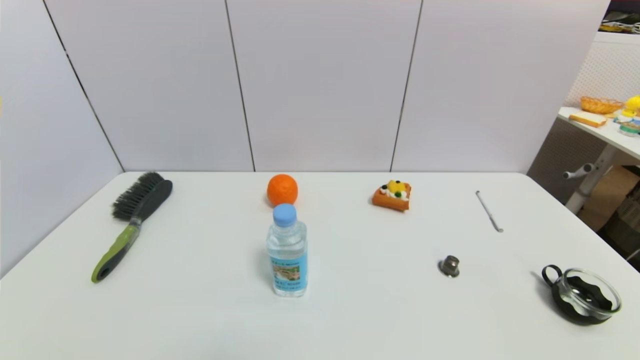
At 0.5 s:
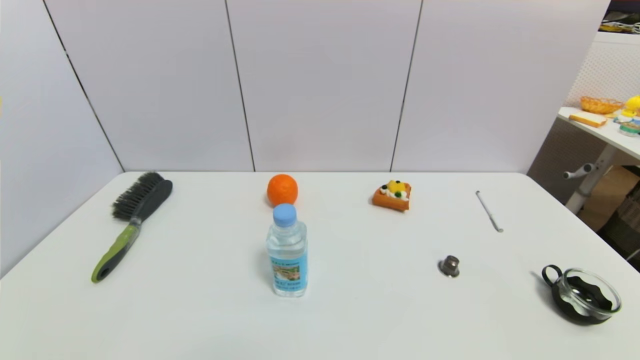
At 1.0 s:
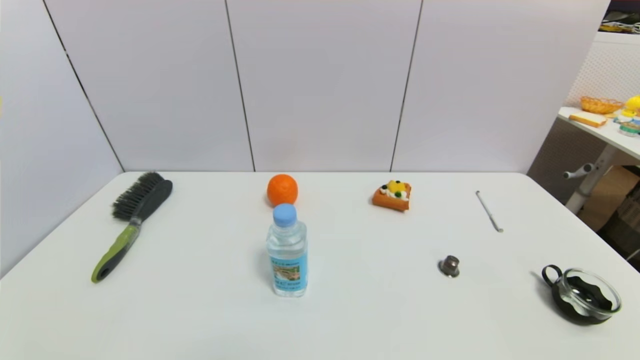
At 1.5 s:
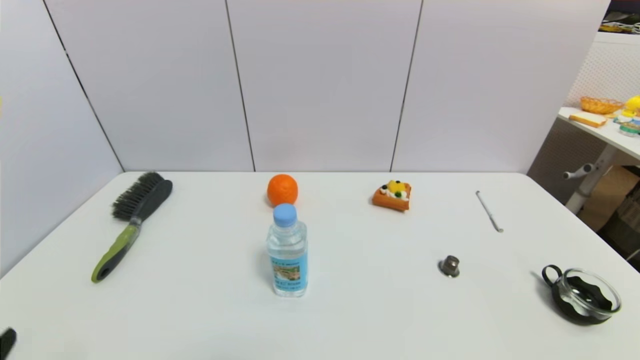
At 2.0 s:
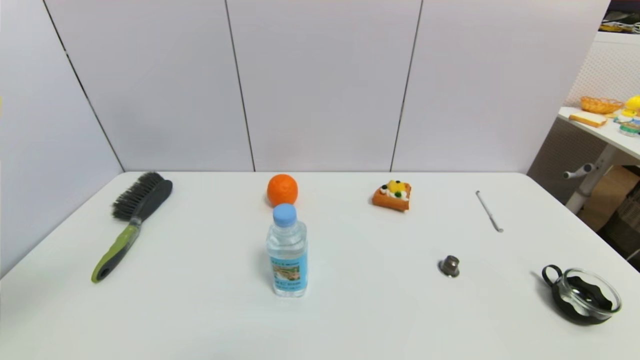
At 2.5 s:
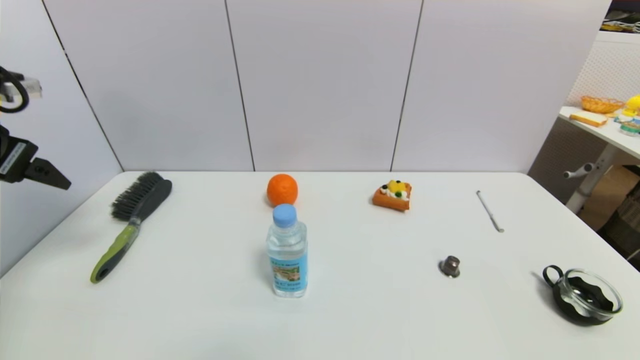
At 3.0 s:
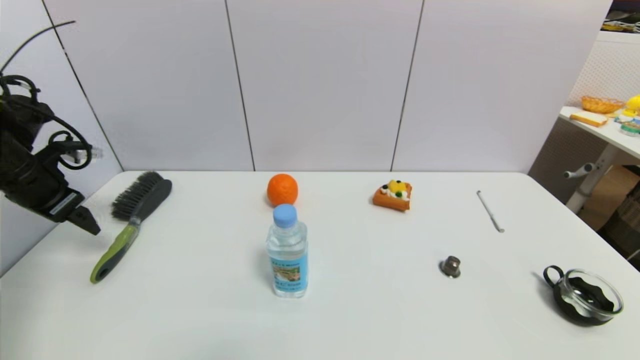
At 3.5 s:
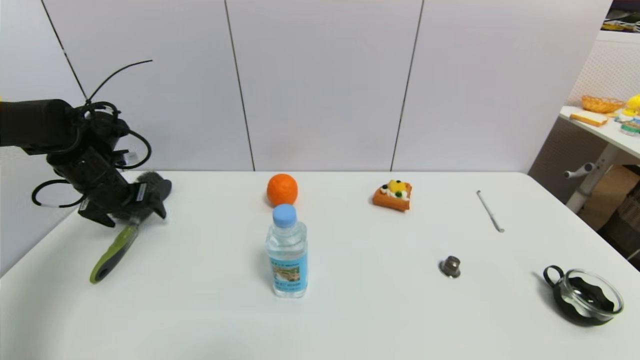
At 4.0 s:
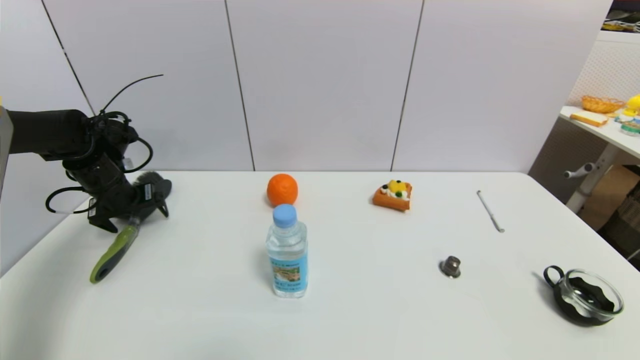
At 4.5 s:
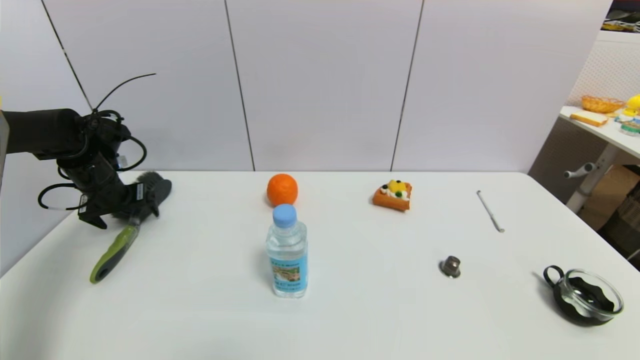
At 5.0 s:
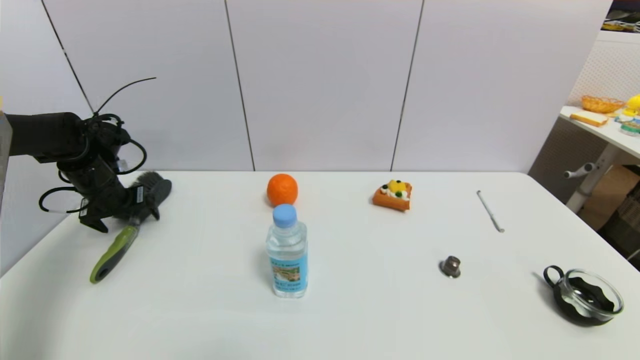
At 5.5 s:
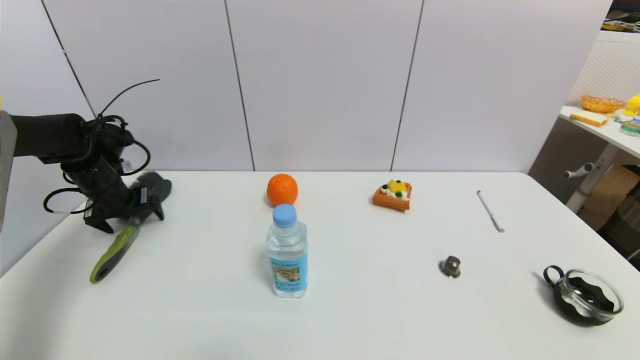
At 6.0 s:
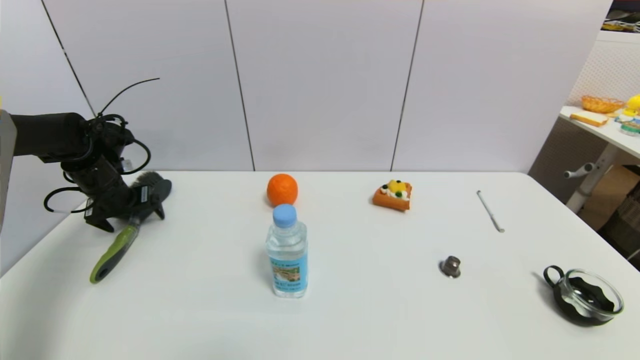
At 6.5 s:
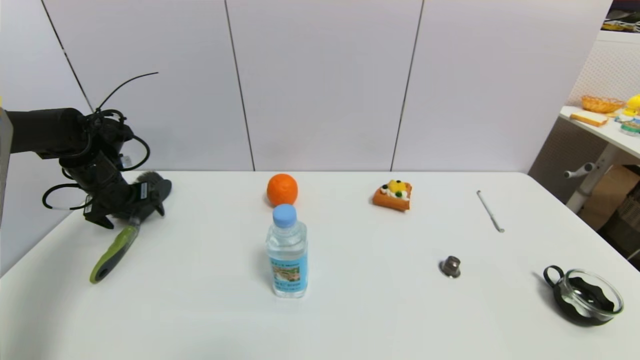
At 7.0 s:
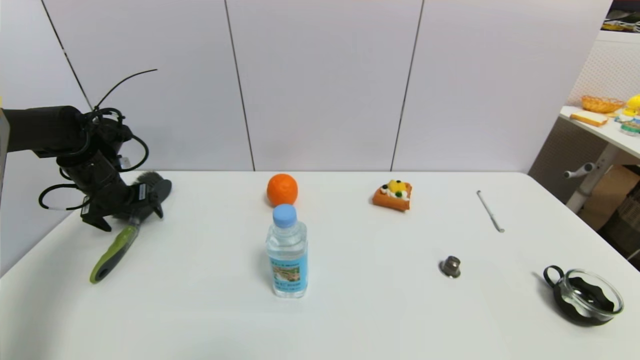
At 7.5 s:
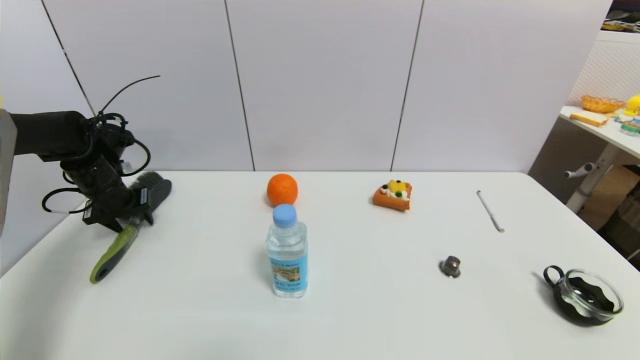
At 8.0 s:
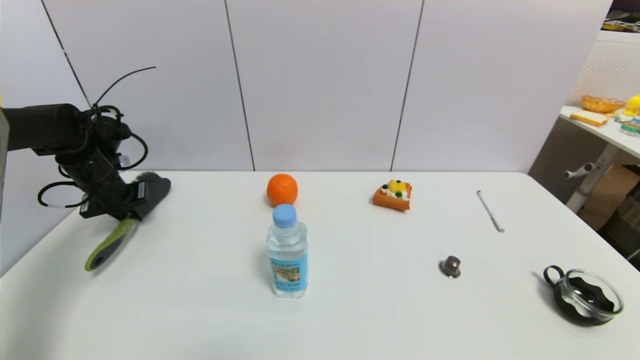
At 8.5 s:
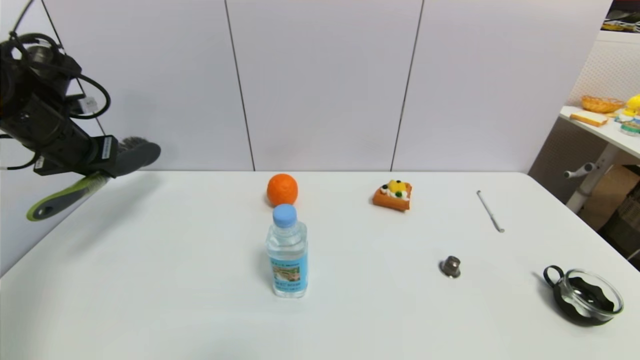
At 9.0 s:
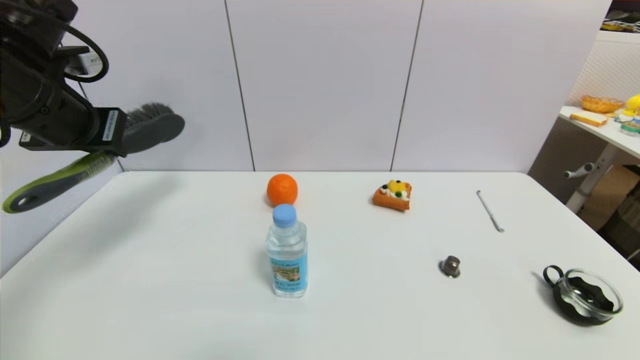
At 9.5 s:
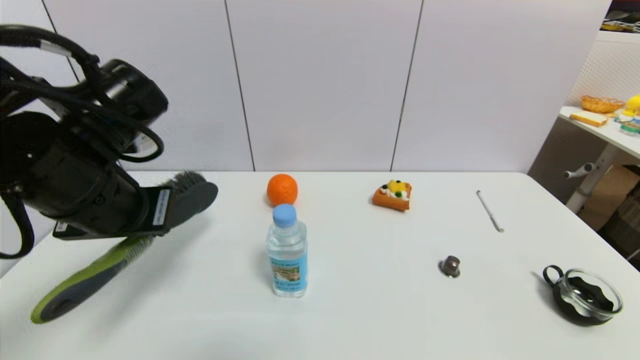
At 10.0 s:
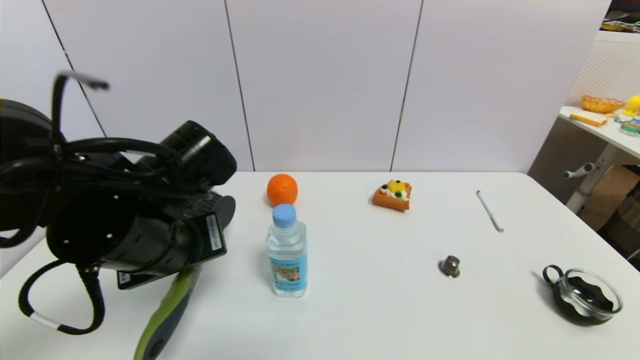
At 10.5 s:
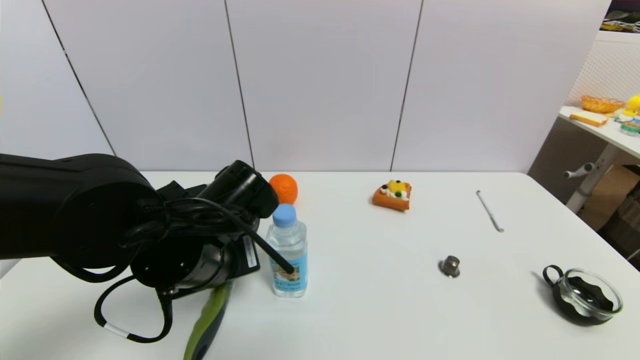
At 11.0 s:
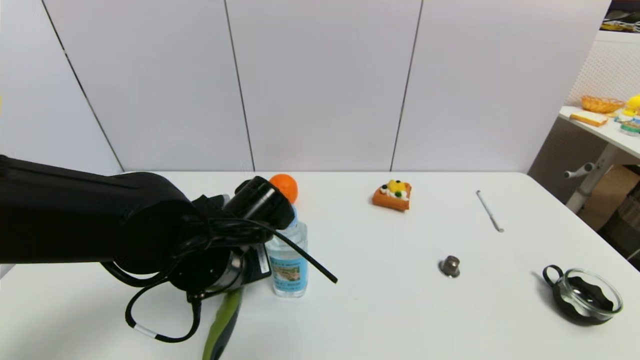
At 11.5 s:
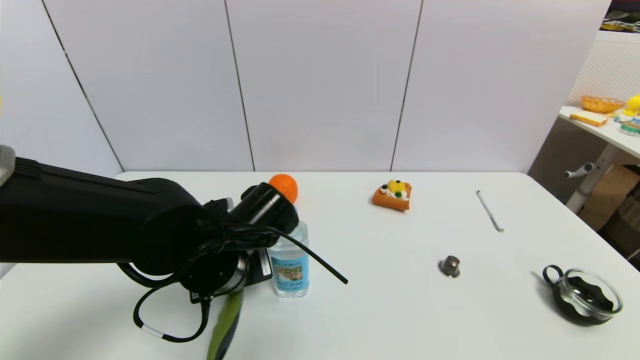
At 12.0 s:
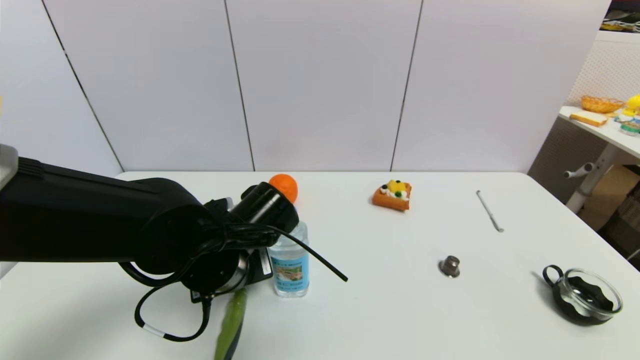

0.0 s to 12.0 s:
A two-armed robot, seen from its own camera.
Task of the whole recording: put the brush in the designated position.
Step, 1.5 to 8.0 s: Grasp the brush with left gripper.
Step, 8.5 to 12.0 s: Place the brush on the table with left gripper.
0.0 to 2.0 s: The left gripper shifts approximately 30 cm upward.
2.0 to 4.0 s: The left gripper travels forward and downward by roughly 40 cm.
4.0 to 6.0 s: The grippers move only a little.
6.0 to 8.0 s: The left gripper closes.
8.0 to 10.0 s: The left gripper moves to the right and backward, about 30 cm.
10.0 to 12.0 s: The left gripper heads downward, covering some 10 cm.

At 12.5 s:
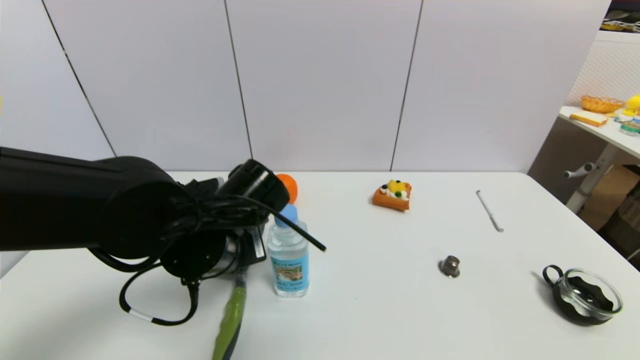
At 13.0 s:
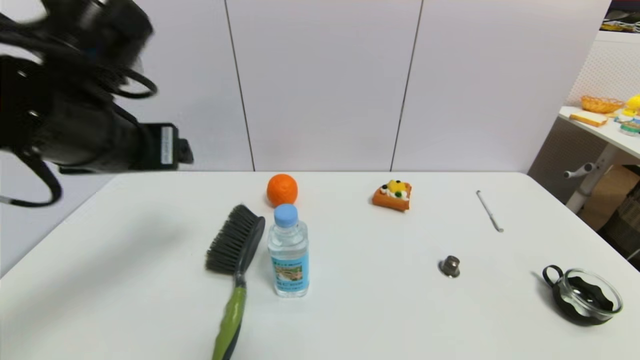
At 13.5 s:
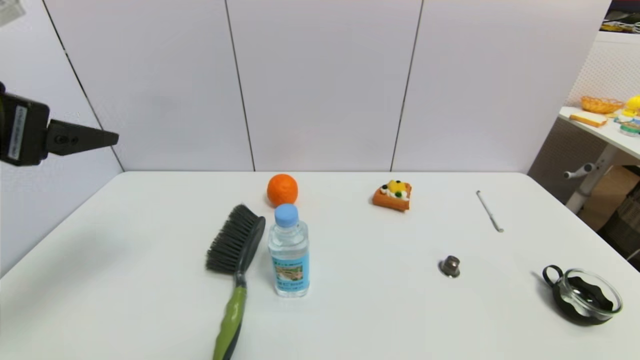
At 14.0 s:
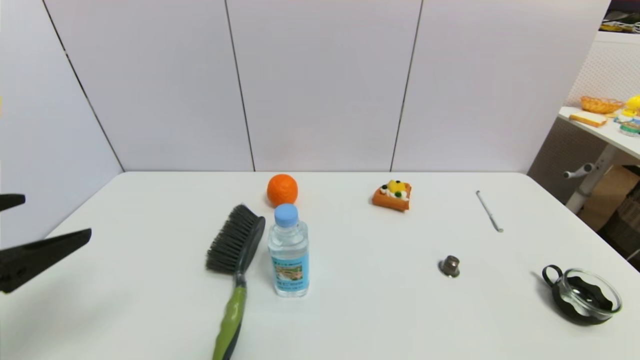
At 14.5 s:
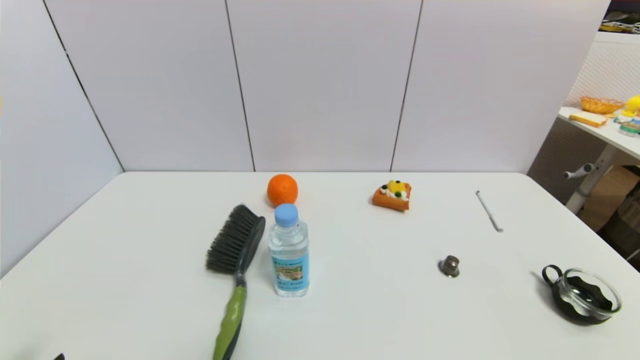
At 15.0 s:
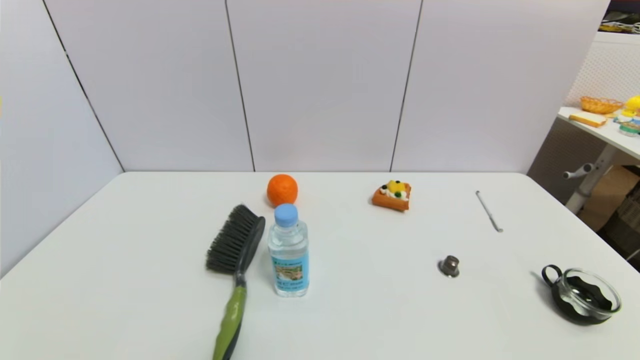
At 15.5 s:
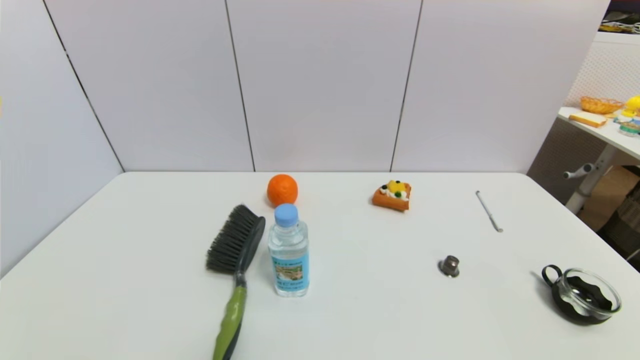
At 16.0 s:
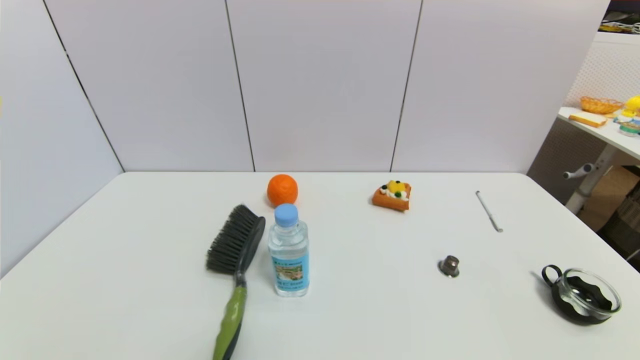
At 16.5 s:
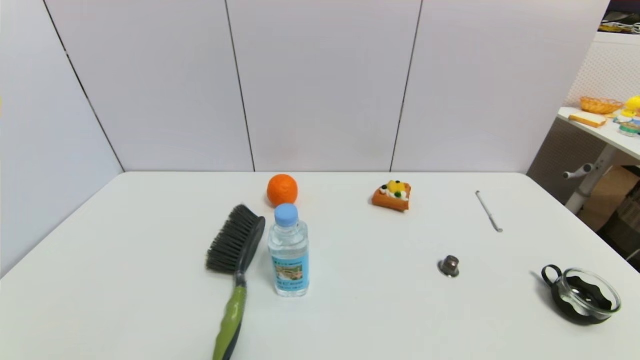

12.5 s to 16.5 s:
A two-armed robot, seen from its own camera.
Task of the whole recording: put the brush in the designated position.
12.5 to 14.5 s: The left gripper heads backward and to the left, covering some 30 cm.
